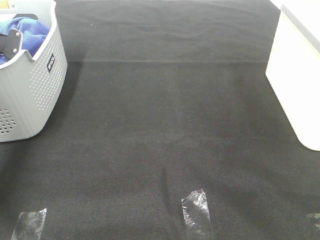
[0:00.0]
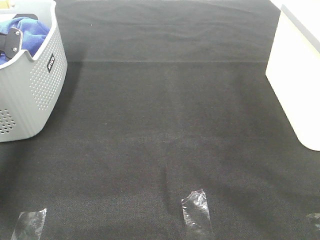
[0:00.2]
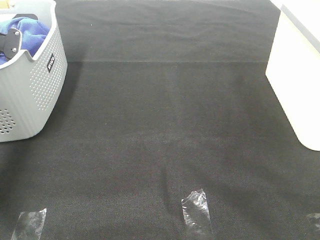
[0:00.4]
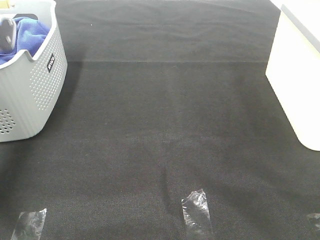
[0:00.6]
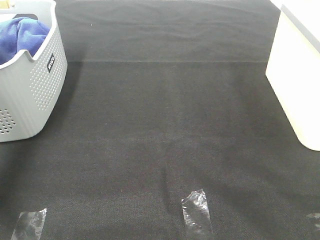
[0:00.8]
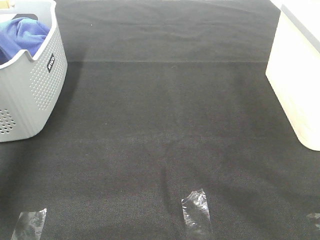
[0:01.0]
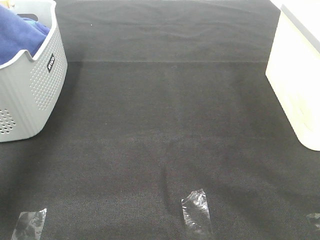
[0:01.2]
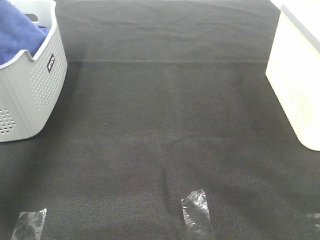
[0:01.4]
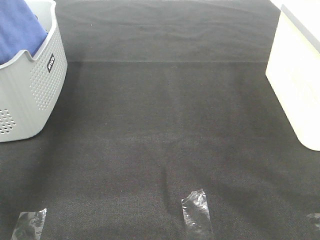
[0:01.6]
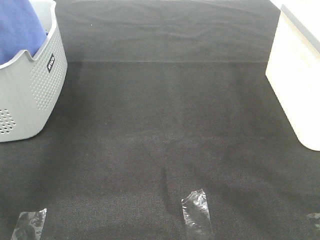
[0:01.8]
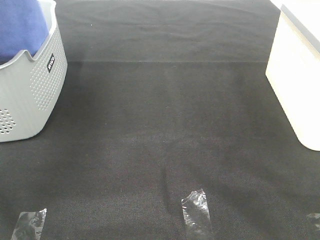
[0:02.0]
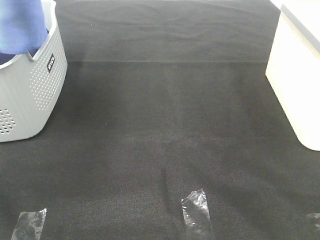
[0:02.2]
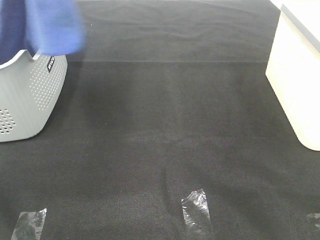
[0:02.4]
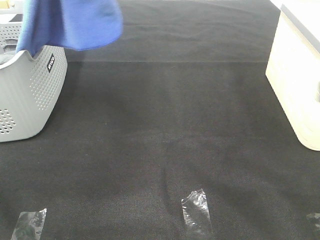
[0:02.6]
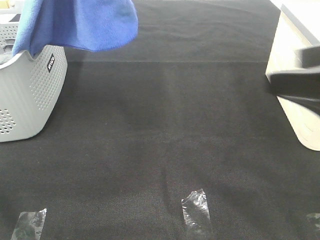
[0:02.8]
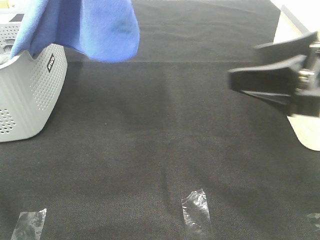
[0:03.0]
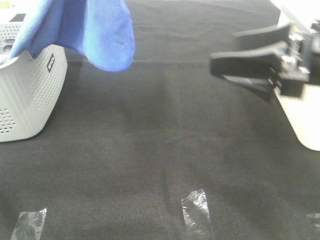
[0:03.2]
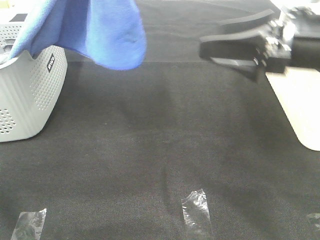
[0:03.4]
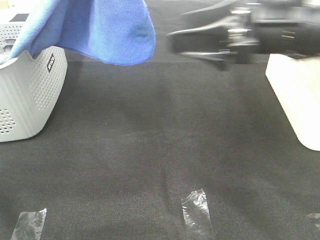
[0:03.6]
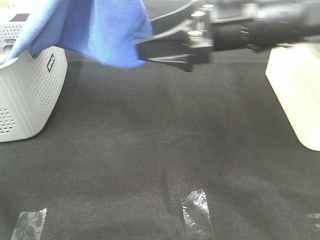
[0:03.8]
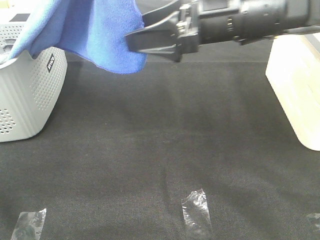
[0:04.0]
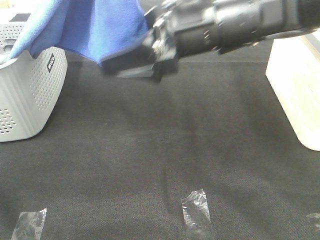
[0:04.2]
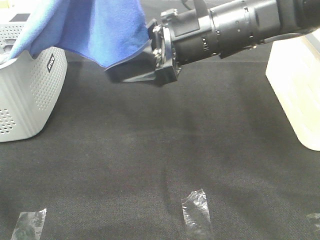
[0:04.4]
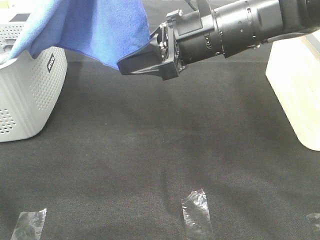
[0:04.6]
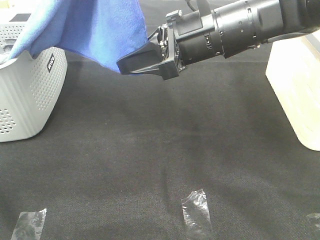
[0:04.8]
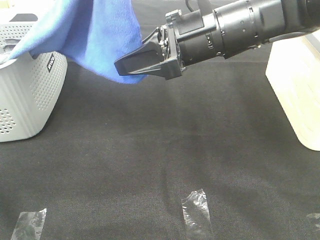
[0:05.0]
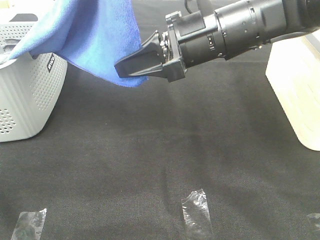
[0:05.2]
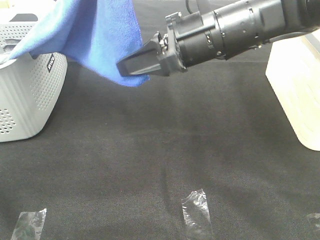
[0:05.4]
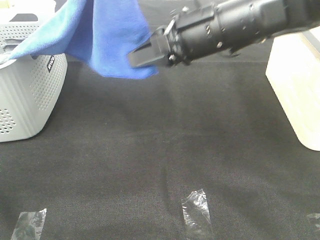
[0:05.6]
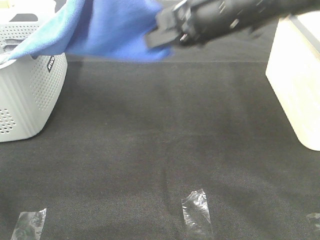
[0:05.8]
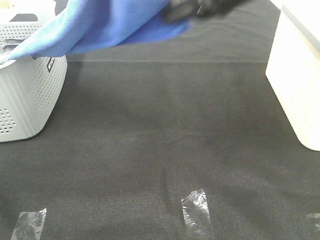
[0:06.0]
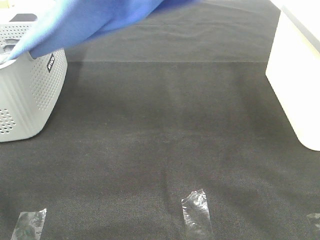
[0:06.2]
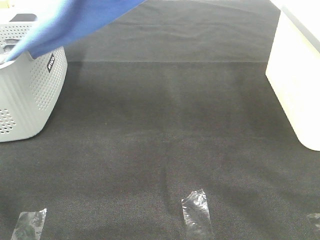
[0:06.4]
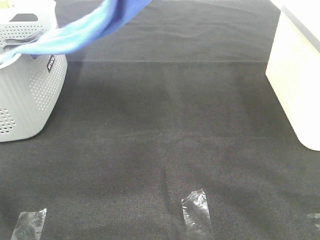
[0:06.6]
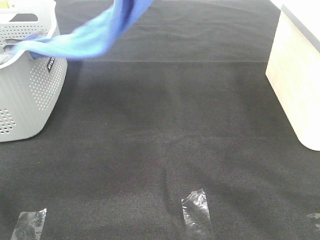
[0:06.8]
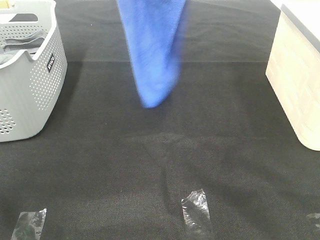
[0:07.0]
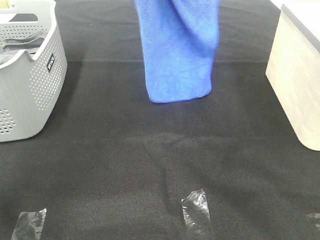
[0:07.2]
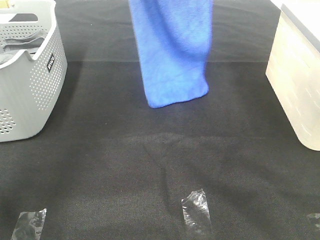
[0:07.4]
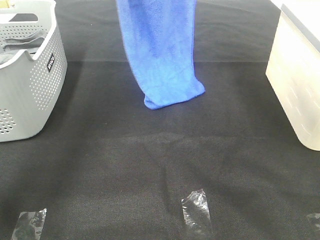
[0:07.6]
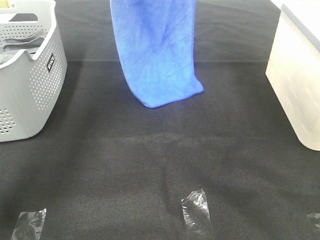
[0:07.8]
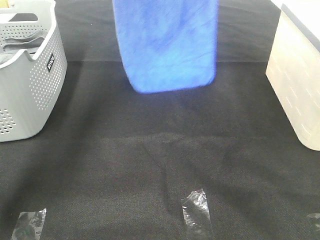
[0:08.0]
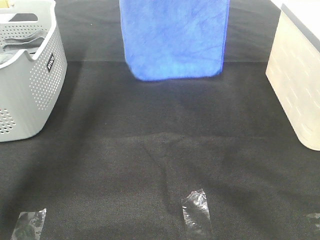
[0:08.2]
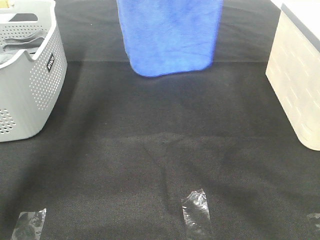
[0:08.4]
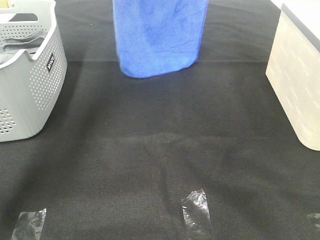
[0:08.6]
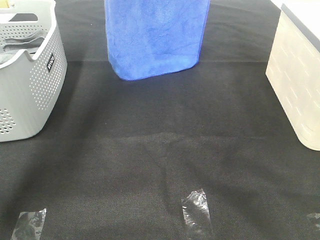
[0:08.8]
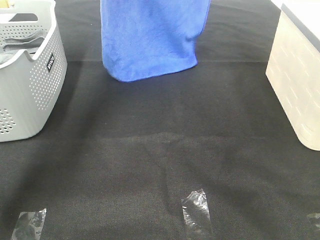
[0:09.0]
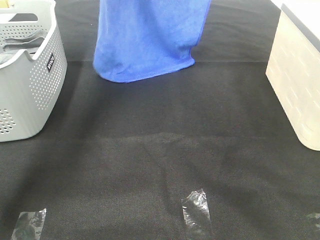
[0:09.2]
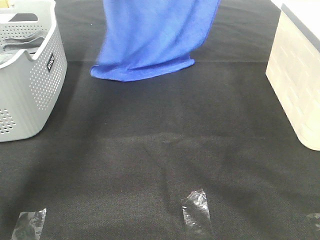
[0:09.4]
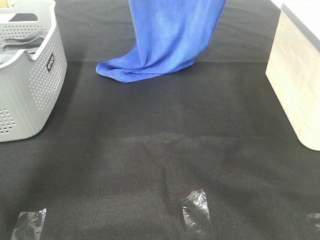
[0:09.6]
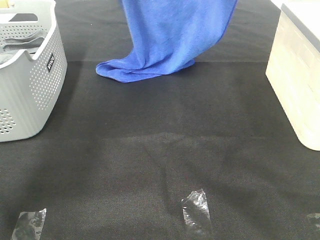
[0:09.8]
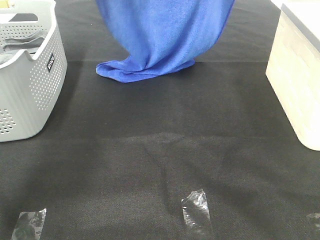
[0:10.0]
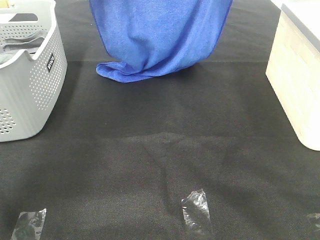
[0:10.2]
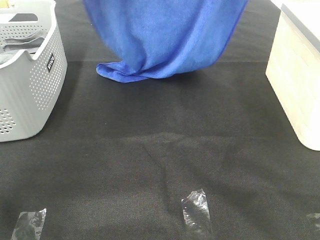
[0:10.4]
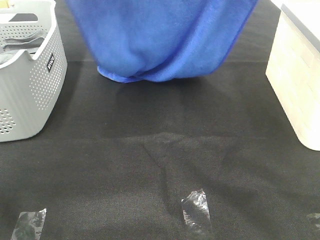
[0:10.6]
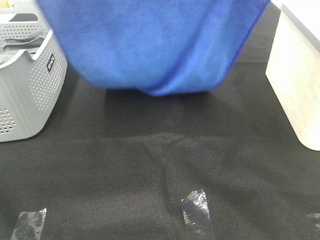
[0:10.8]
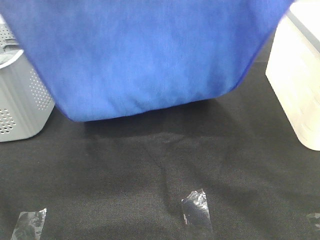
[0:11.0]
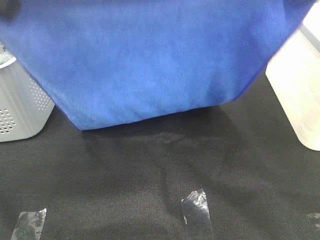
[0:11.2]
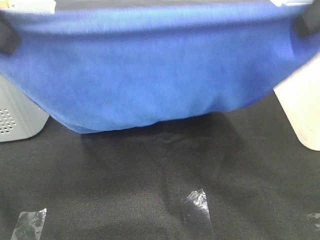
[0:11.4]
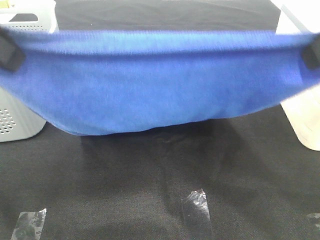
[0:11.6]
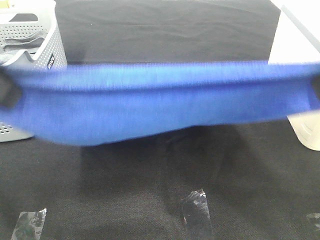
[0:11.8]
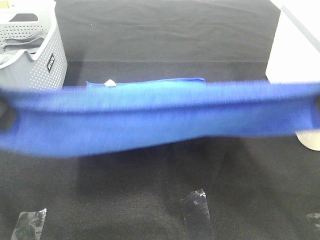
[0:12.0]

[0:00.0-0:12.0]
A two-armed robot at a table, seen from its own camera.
Task of the whole recording: Remove the towel and place it.
Step, 0:01.8 to 0:05.4: Right hand: grab a corner of the blue towel and straighten it.
Step, 0:05.6 to 0:11.4: Left hand: spread the blue towel flat on the table.
Step, 0:05.6 to 0:11.4: Right hand: spread the blue towel flat on the table.
0:00.0 to 0:01.6: The left gripper is displaced upward by about 25 cm.
0:01.6 to 0:03.0: The right gripper is displaced forward by some 20 cm. The left gripper is displaced to the right, backward and upward by approximately 20 cm.
0:03.0 to 0:04.4: The right gripper goes roughly 20 cm to the left and forward.
0:04.4 to 0:06.0: The right gripper moves upward, approximately 10 cm, and closes up.
0:06.0 to 0:07.6: The right gripper heads forward and upward, covering about 20 cm, while the left gripper travels forward by roughly 20 cm.
0:07.6 to 0:09.0: The left gripper travels forward by about 5 cm. Meanwhile the right gripper is displaced to the right and forward by about 10 cm.
0:09.0 to 0:10.4: Both grippers move backward, approximately 15 cm.
0:10.4 to 0:12.0: The two grippers go approximately 25 cm backward and downward.

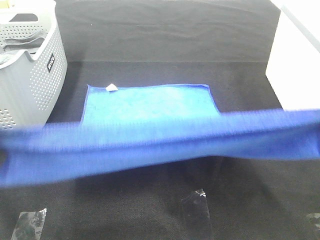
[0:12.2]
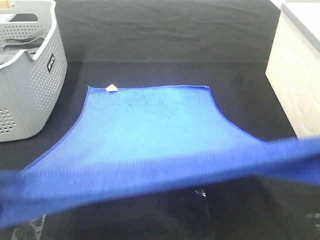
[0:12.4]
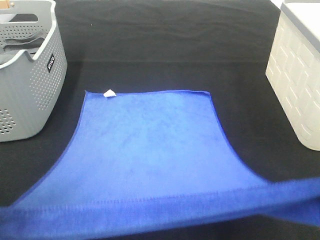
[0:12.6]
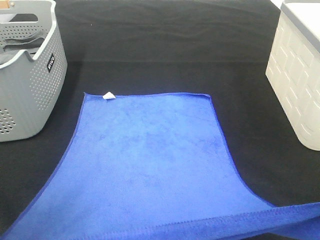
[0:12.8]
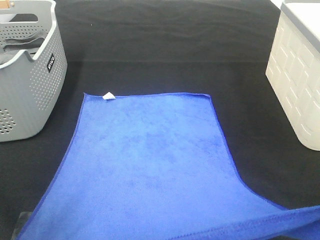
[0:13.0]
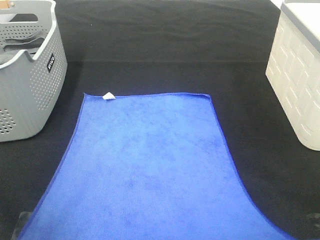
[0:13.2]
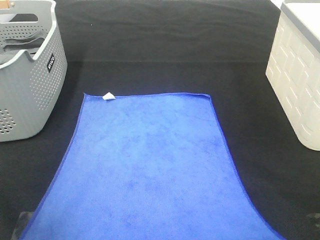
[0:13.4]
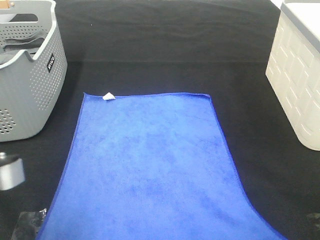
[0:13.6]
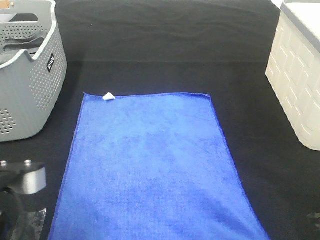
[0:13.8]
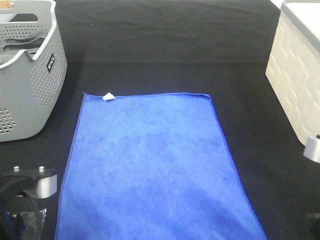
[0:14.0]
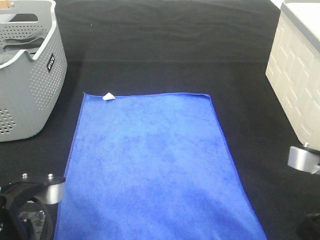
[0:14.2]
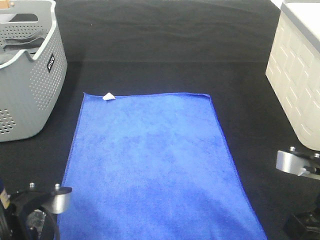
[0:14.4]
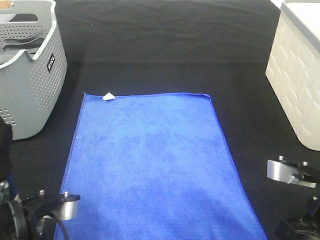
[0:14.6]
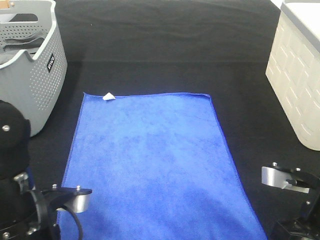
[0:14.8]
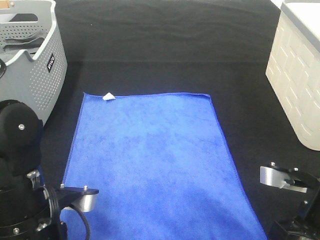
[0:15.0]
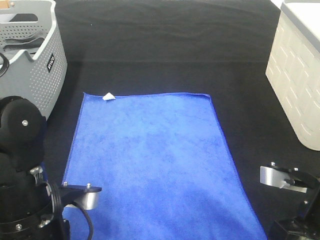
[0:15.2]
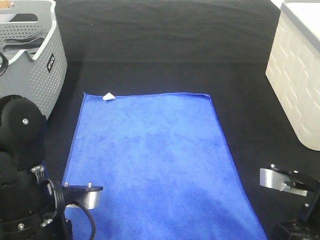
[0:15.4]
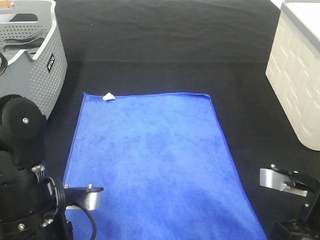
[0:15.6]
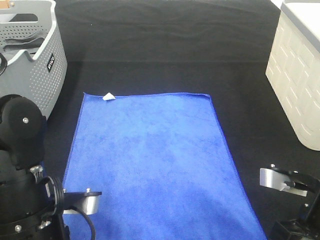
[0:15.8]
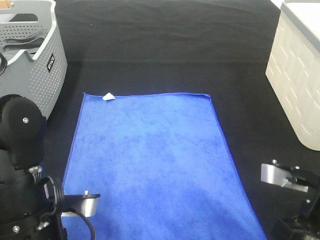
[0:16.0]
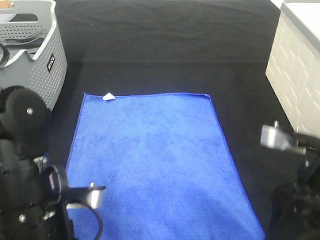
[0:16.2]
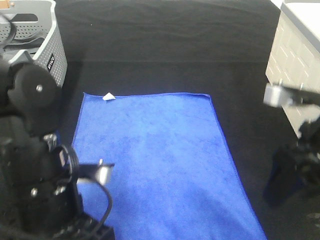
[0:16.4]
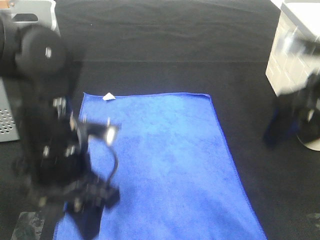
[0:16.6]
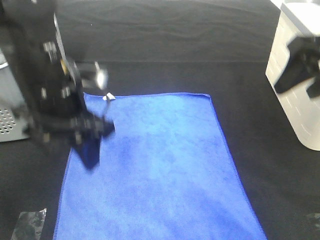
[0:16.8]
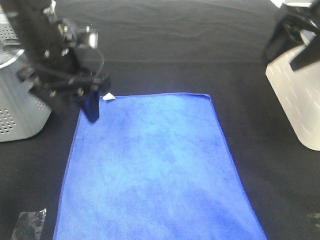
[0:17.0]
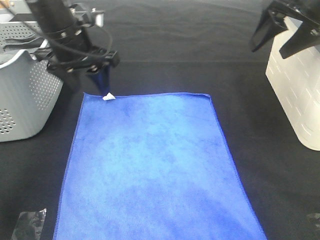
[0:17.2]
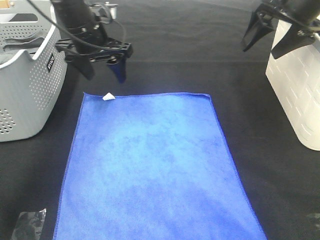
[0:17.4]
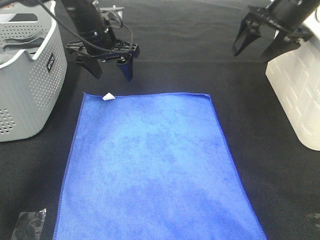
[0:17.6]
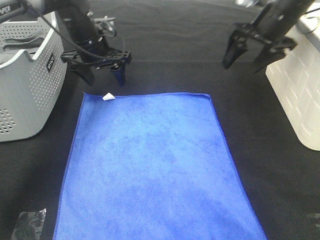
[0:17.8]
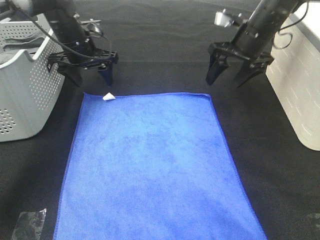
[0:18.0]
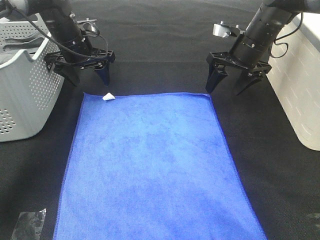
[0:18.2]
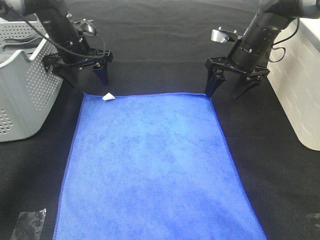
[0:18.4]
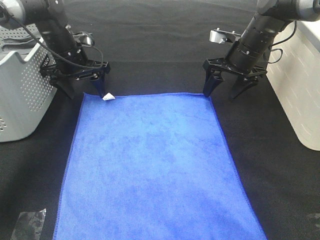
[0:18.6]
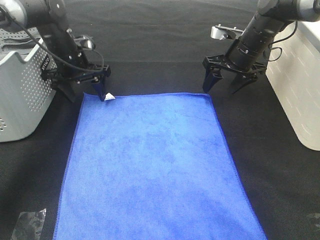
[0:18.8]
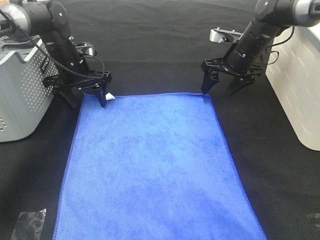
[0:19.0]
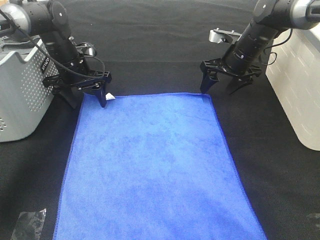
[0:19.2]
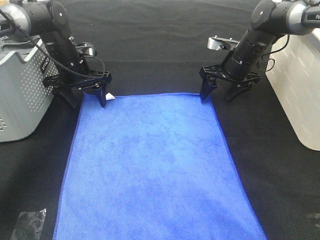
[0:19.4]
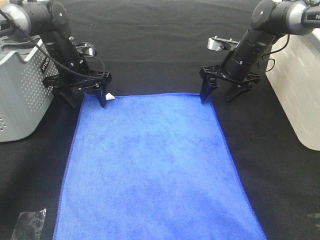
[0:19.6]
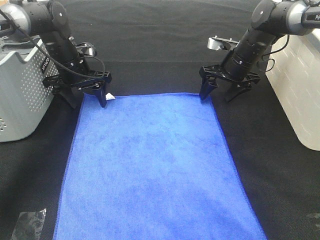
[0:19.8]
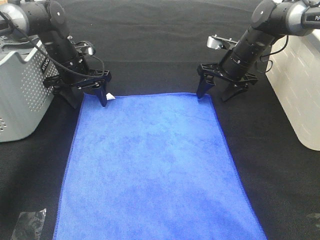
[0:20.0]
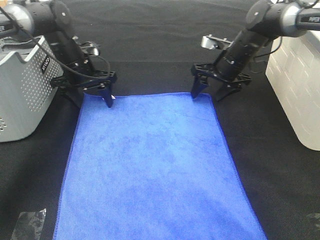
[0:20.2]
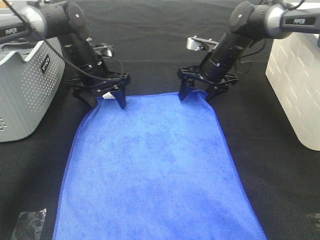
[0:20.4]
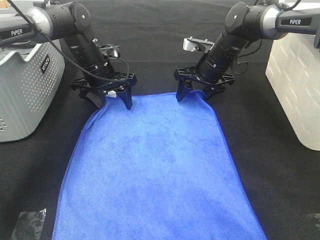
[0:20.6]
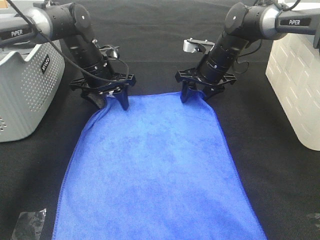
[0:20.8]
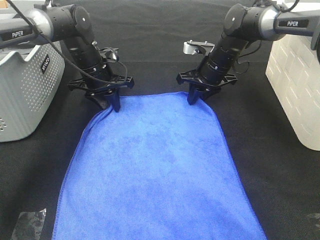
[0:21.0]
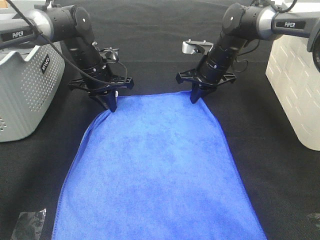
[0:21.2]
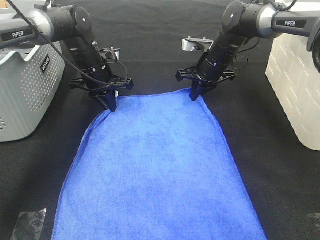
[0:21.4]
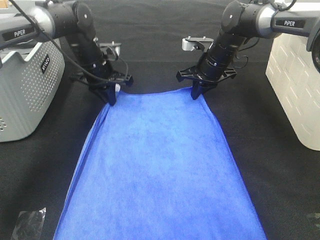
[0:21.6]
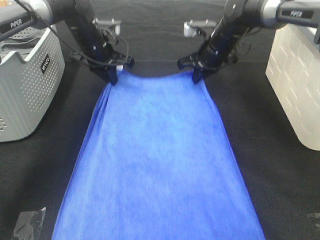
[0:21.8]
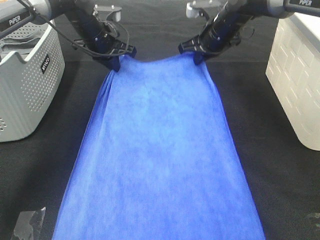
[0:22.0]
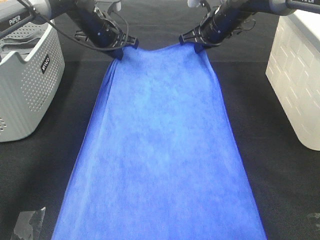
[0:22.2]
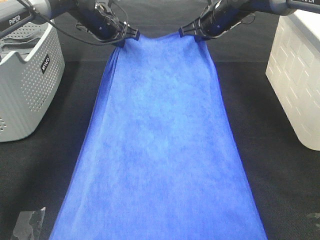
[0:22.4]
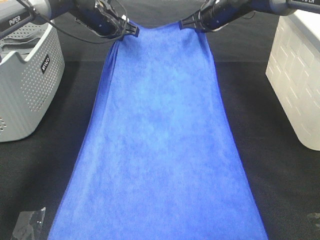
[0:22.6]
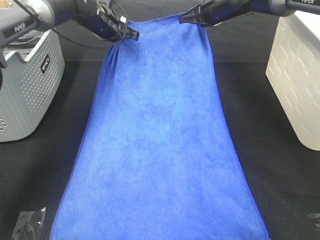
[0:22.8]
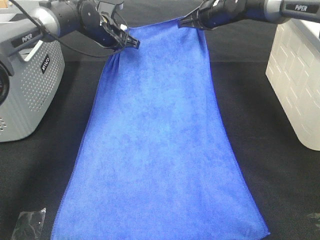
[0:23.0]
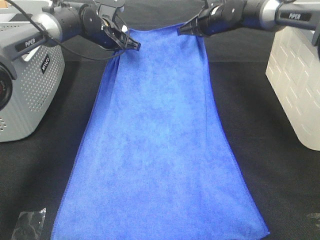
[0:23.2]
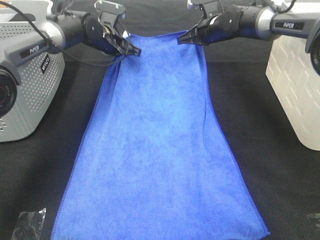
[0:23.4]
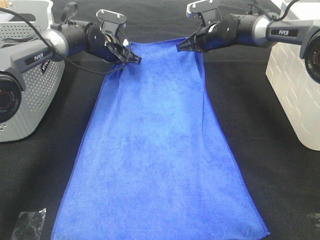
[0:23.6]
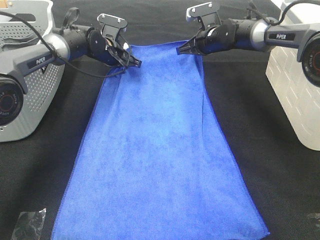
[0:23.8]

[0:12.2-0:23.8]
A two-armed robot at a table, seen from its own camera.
Task of the whole recording: Remove the towel and place it.
Step, 0:12.2 to 0:19.2: Left hand:adjust the blue towel.
Step, 0:12.2 to 0:19.2: Right hand:adjust the blue towel.
0:12.2 to 0:13.6: The two grippers go some 10 cm downward.
0:13.6 to 0:15.0: Both grippers travel together downward and forward, about 10 cm.
0:15.0 to 0:16.6: The left gripper shifts roughly 10 cm forward and upward, and opens. The right gripper goes roughly 15 cm upward and forward, and opens up.
0:16.6 to 0:18.0: Both grippers travel together forward, approximately 25 cm.
0:18.0 to 0:19.4: Both grippers move downward, approximately 5 cm.
0:19.4 to 0:21.0: The right gripper moves to the left, some 5 cm, and closes its fingers. The left gripper goes about 5 cm to the right, and closes its fingers.
0:21.0 to 0:22.4: The right gripper travels upward by approximately 10 cm, while the left gripper is displaced upward and forward by roughly 10 cm.
0:22.4 to 0:23.8: The grippers both shift downward by about 10 cm.
